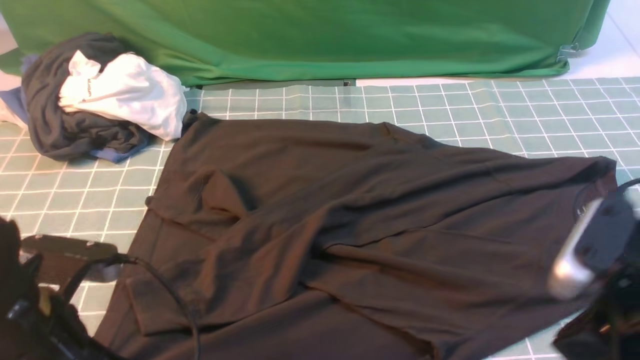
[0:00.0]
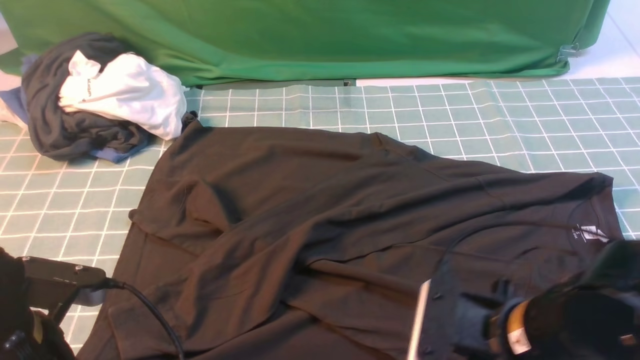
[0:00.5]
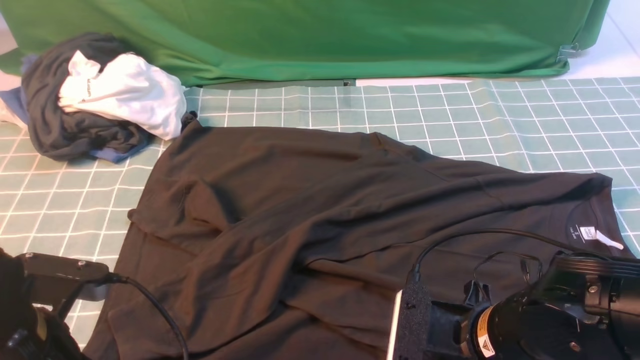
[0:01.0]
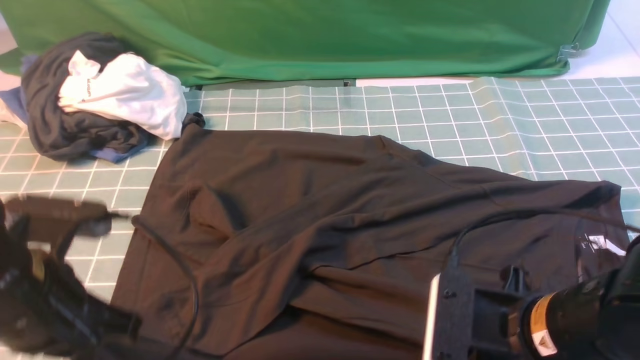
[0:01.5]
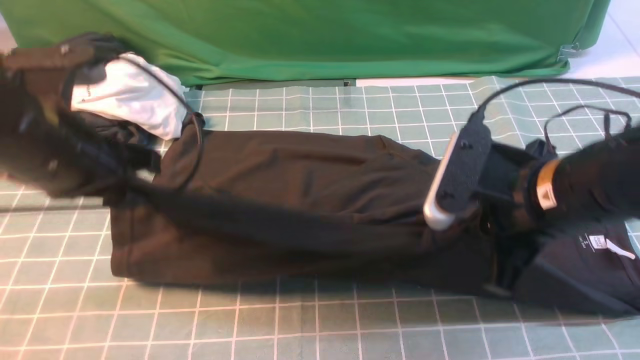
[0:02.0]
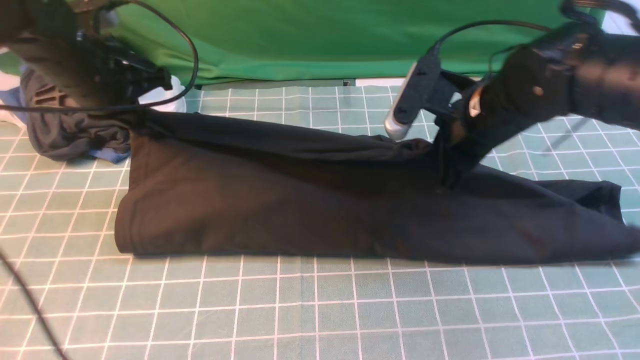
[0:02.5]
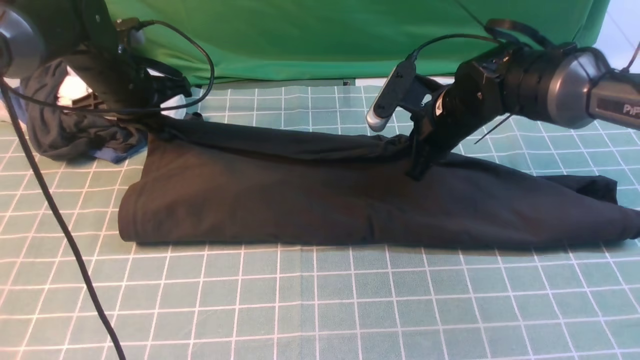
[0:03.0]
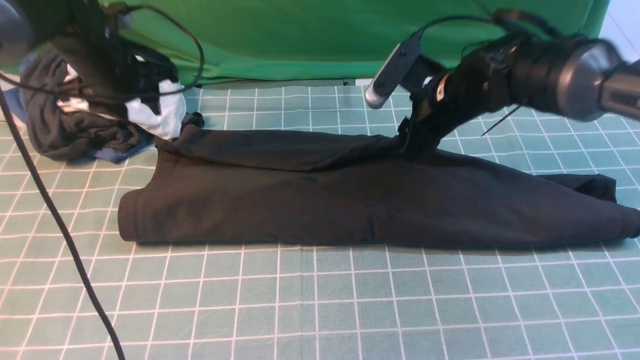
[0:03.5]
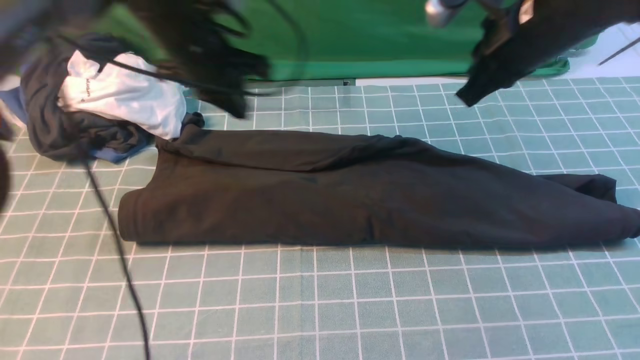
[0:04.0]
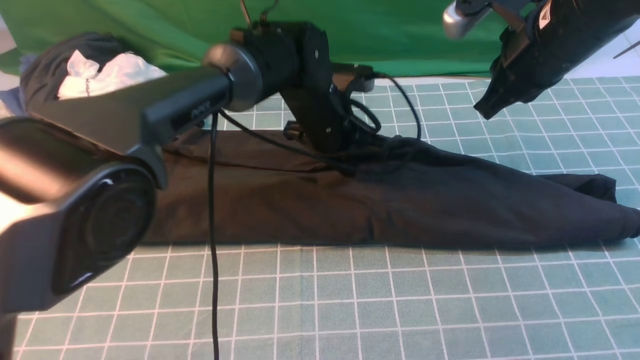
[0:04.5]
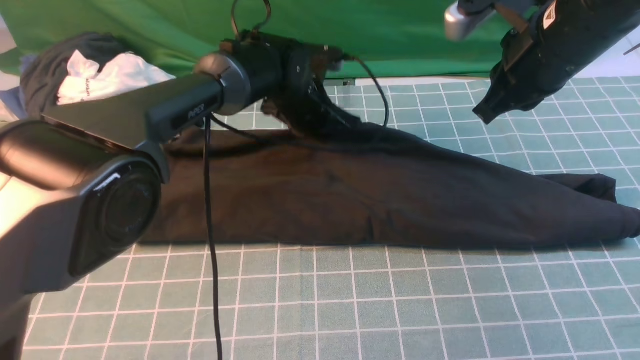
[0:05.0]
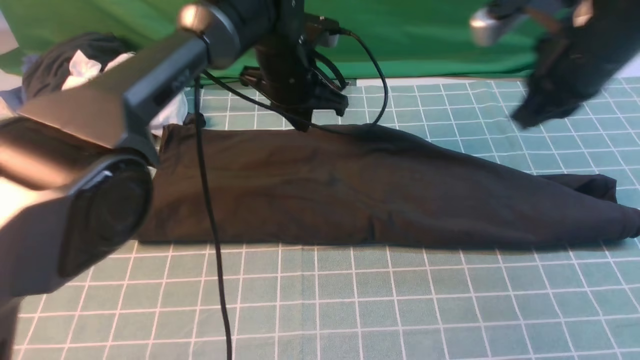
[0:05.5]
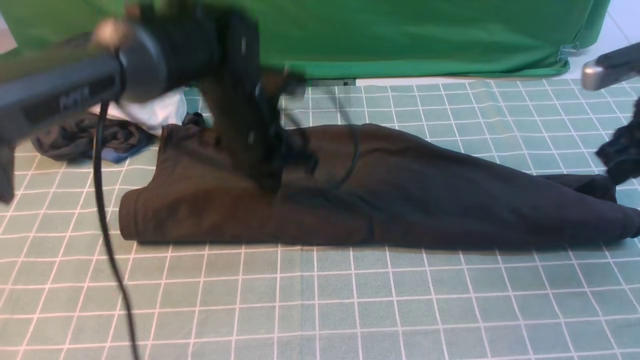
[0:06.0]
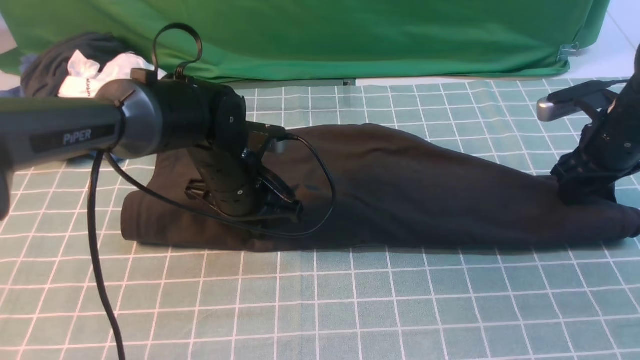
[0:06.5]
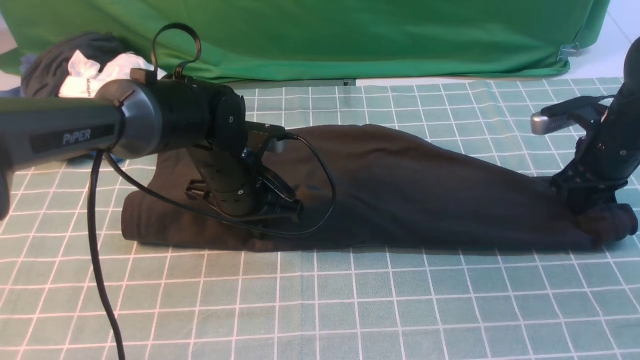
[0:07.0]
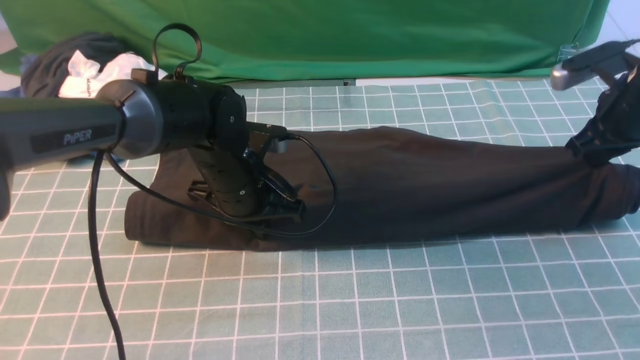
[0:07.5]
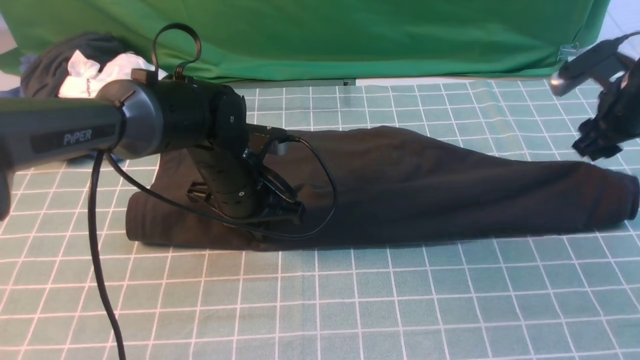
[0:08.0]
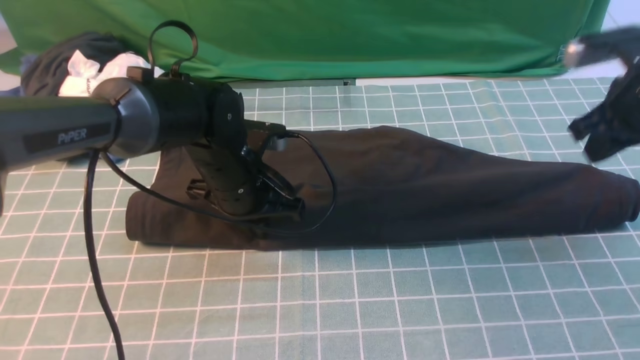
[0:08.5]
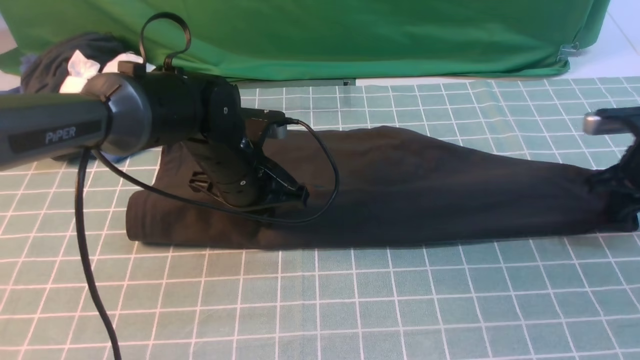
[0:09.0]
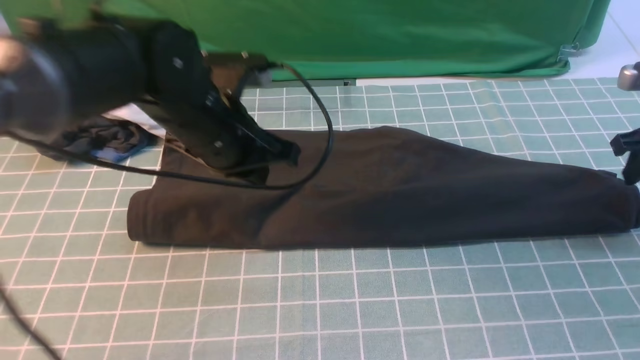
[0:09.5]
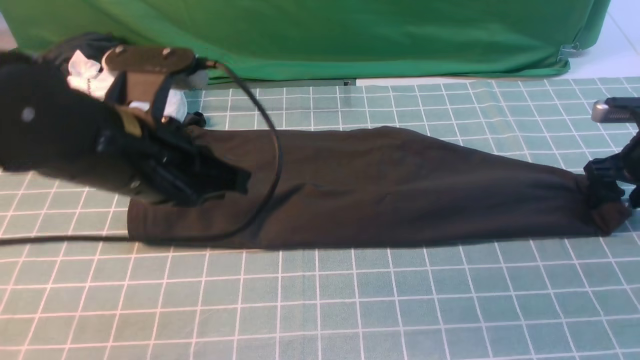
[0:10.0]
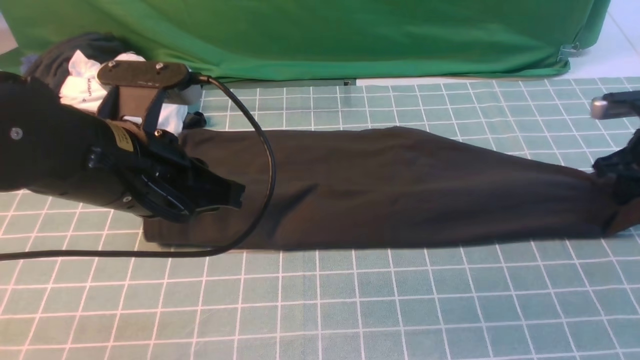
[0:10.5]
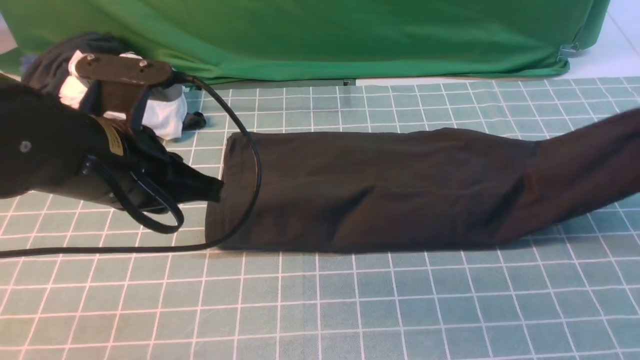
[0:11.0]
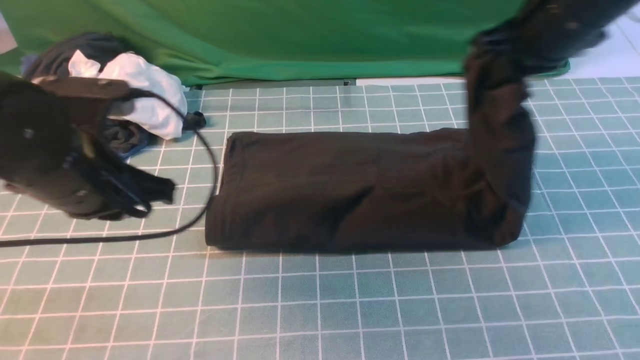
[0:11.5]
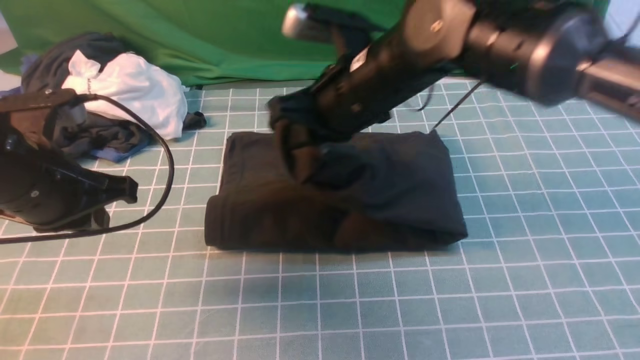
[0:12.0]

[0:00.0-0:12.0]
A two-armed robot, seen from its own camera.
Step, 0:02.0 to 0:05.5: use both arms to drag the lower edge of the fabric forward and fold it over the upper edge.
Step, 0:06.0 to 0:10.5: use the right arm to clamp the right edge of the fabric.
0:00.0 to 0:02.0: The left gripper is displaced forward and upward by approximately 15 cm; the right gripper shifts approximately 10 cm forward and to the left, moves approximately 10 cm downward and comes back, and opens, then closes again.
0:02.0 to 0:04.0: The right gripper travels forward and upward by roughly 15 cm, and opens, then closes again. The left gripper moves forward and to the right, some 20 cm, and opens, then closes once more.
0:04.0 to 0:06.0: The right gripper travels to the right and downward by about 15 cm, and opens up. The left gripper heads backward and downward, covering approximately 10 cm.
0:06.0 to 0:08.0: The left gripper shifts roughly 5 cm downward. The right gripper moves forward, some 5 cm, and closes, then opens again.
0:08.0 to 0:10.0: The right gripper moves downward, roughly 5 cm, and closes, then reopens, while the left gripper is displaced upward and backward by approximately 15 cm.
0:10.0 to 0:12.0: The left gripper goes about 10 cm to the left. The right gripper goes about 35 cm to the left, and closes its fingers.

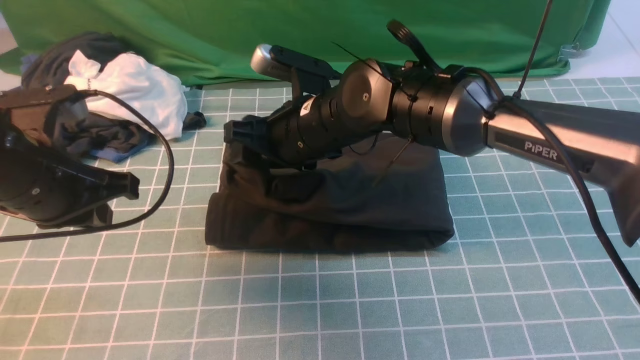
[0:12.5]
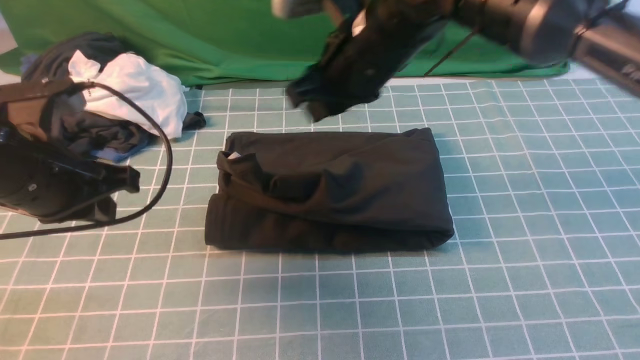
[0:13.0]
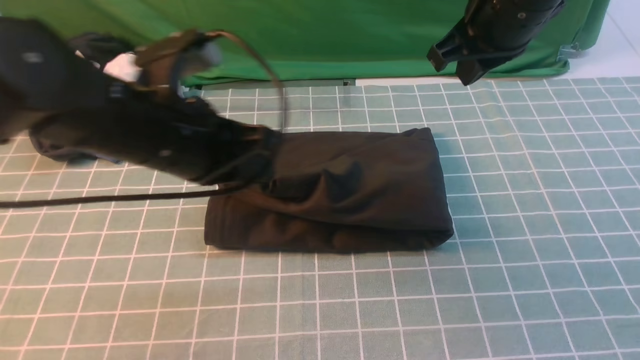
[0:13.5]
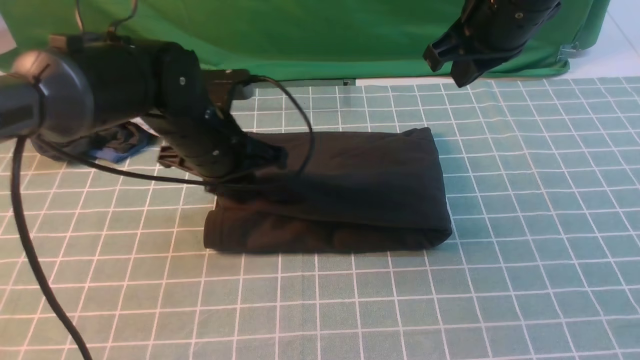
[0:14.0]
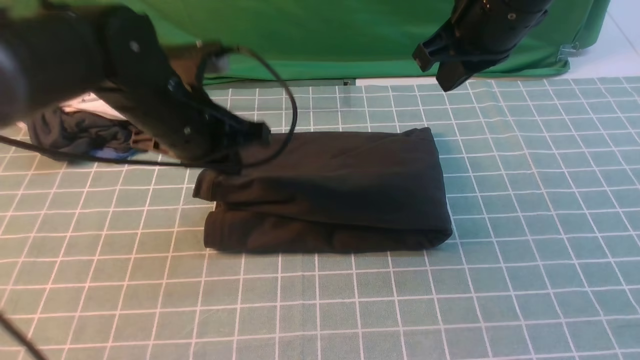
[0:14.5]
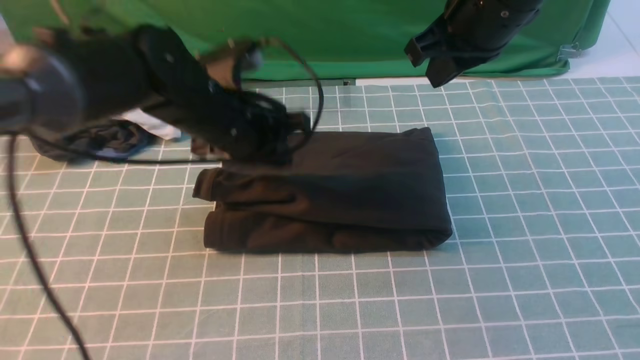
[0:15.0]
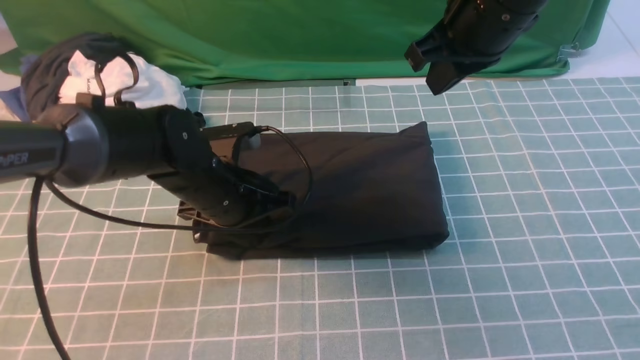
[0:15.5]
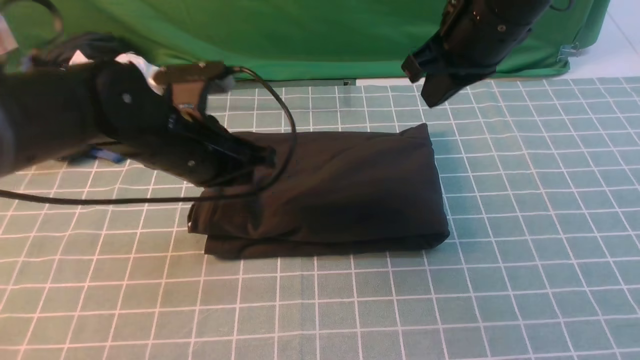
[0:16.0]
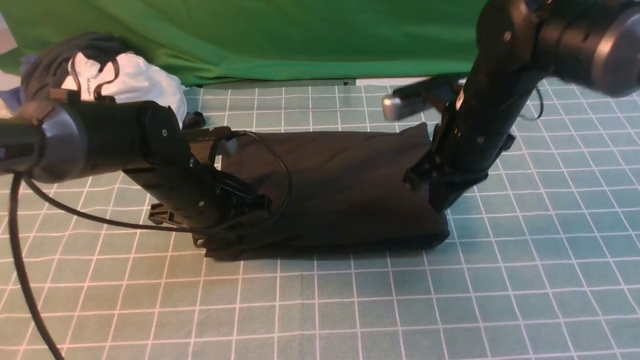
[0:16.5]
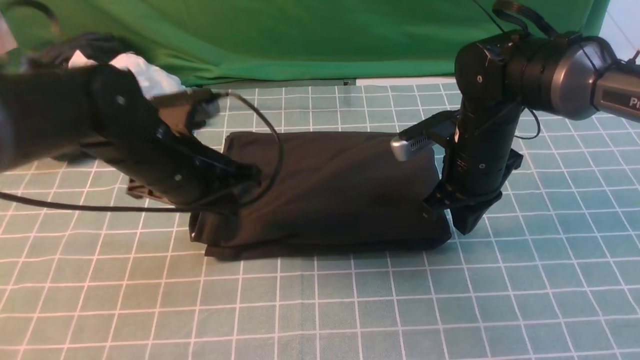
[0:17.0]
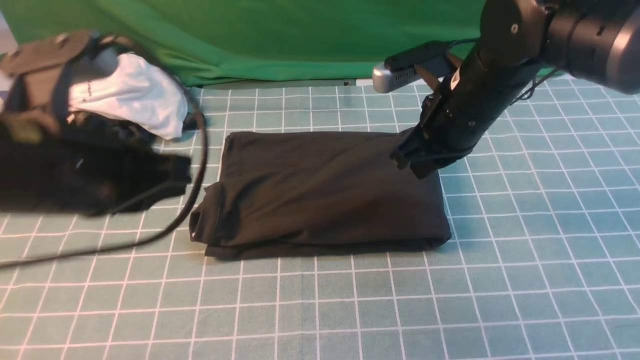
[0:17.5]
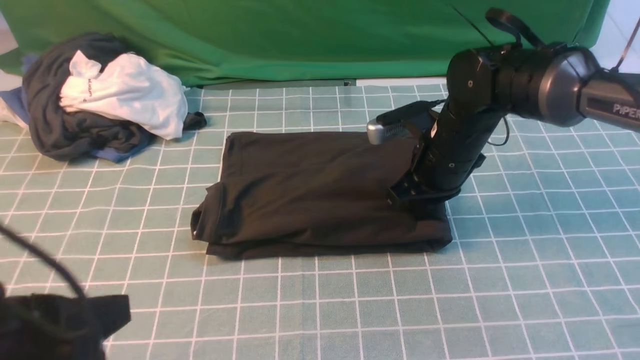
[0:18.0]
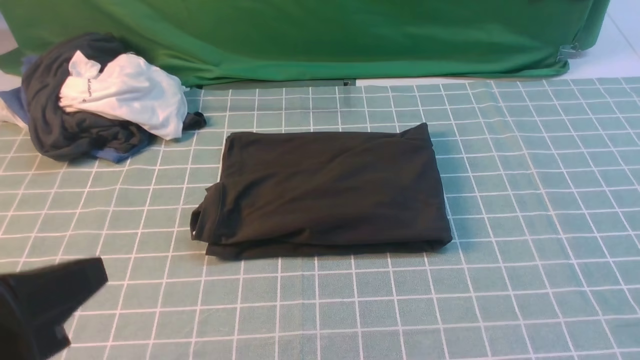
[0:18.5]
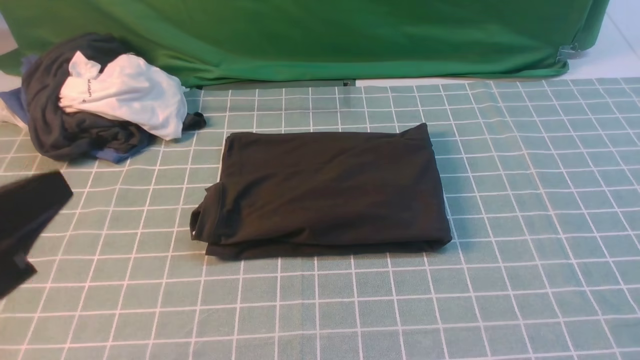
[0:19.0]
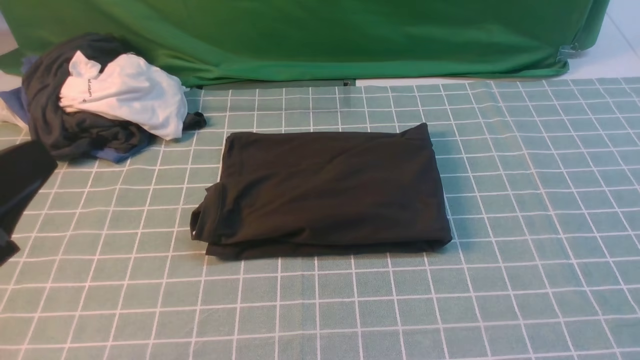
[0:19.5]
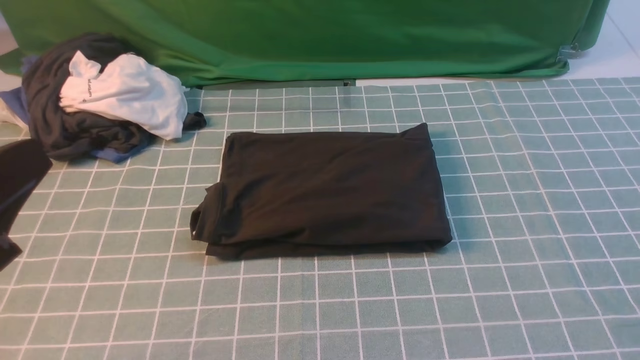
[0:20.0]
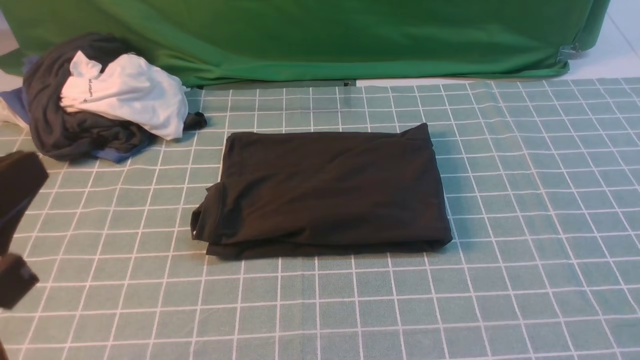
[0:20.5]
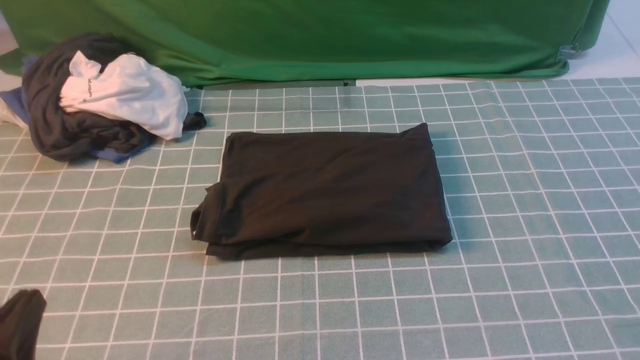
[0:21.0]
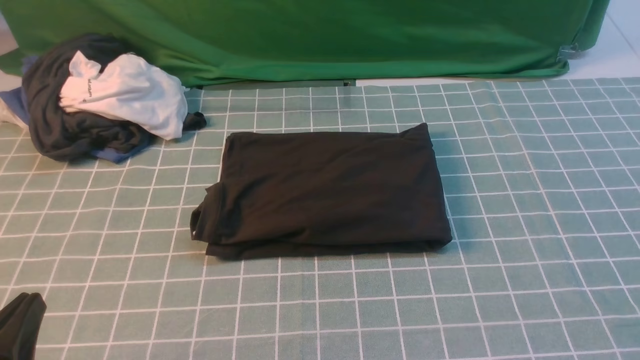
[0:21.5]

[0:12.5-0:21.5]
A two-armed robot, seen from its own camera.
0:12.5 to 0:14.5: The right gripper is displaced to the right and upward by roughly 20 cm, and closes its fingers, while the left gripper moves to the right and forward, some 15 cm.
0:14.5 to 0:17.0: The right gripper shifts roughly 15 cm downward, while the left gripper moves up and down over roughly 10 cm, changing direction 3 times.
0:17.0 to 0:19.5: The right gripper goes approximately 50 cm backward, upward and to the right; the left gripper travels backward and upward by approximately 25 cm.
0:19.5 to 0:21.5: The left gripper moves downward, approximately 15 cm.
